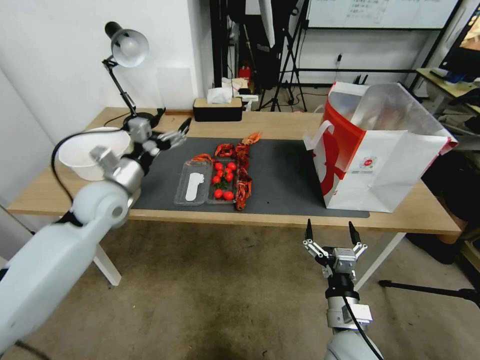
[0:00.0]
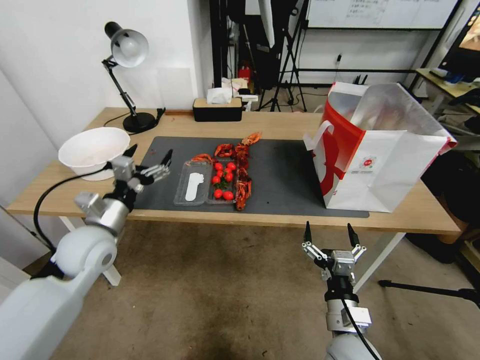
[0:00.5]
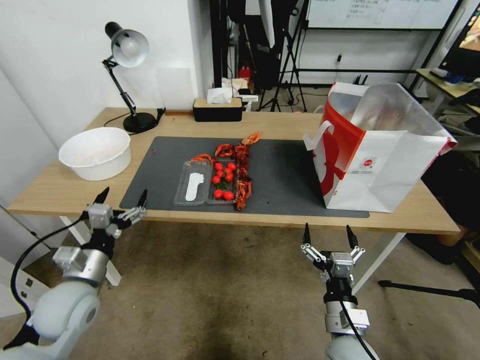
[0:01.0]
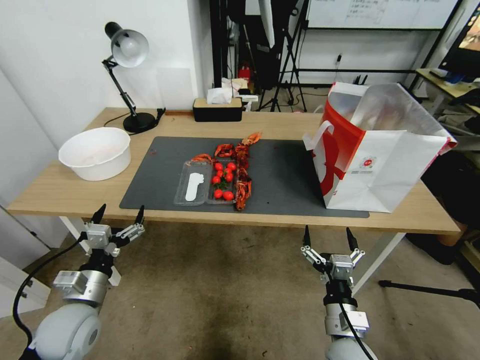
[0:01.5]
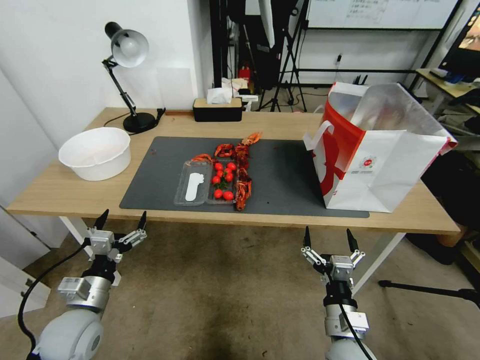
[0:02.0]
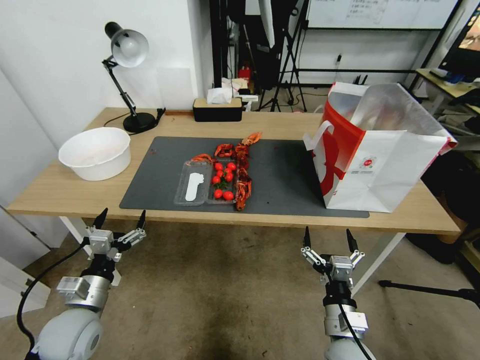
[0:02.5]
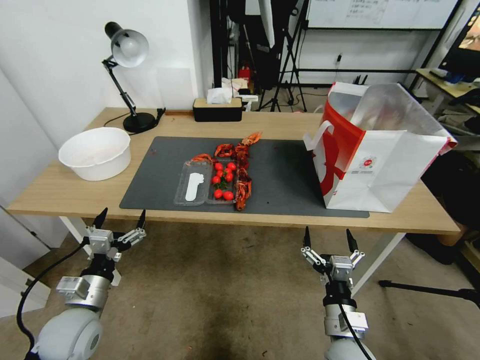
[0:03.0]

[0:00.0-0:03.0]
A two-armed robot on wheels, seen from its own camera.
0:00.0 to 0:01.5: The left gripper goes approximately 25 cm backward and downward.
0:01.5 to 0:03.0: The grippers move only a little.

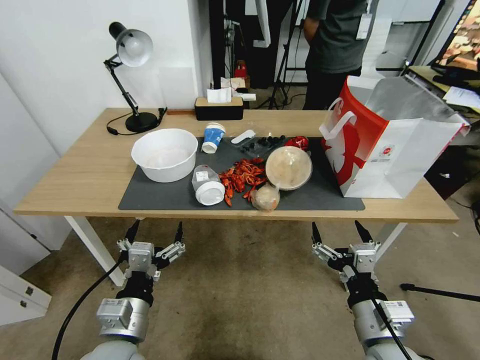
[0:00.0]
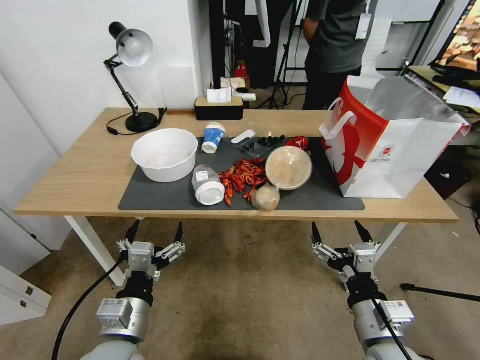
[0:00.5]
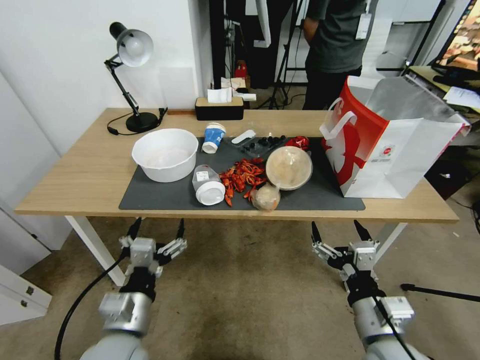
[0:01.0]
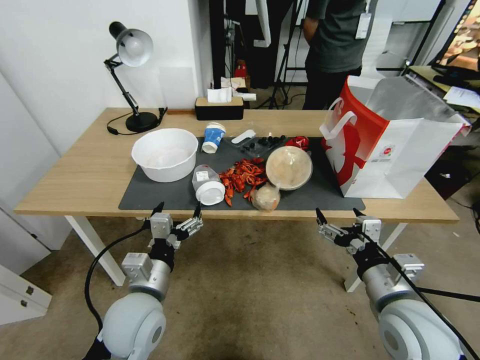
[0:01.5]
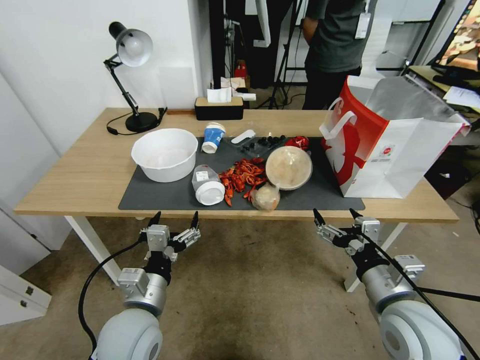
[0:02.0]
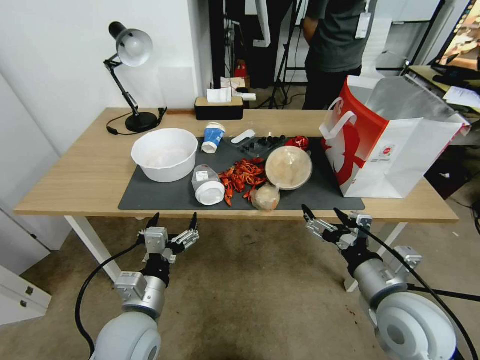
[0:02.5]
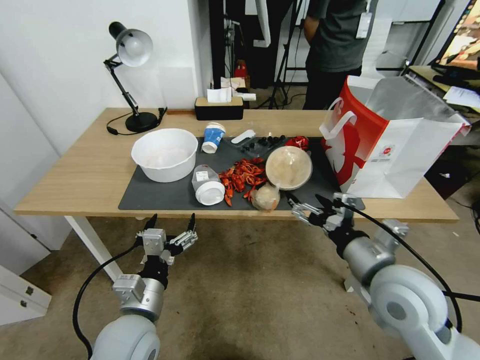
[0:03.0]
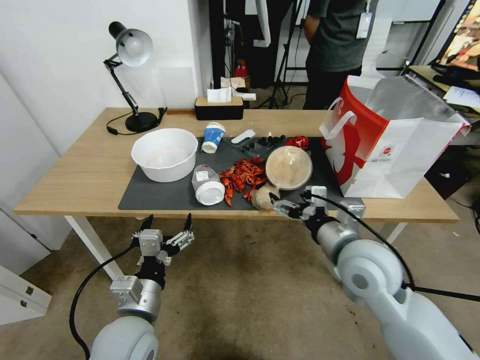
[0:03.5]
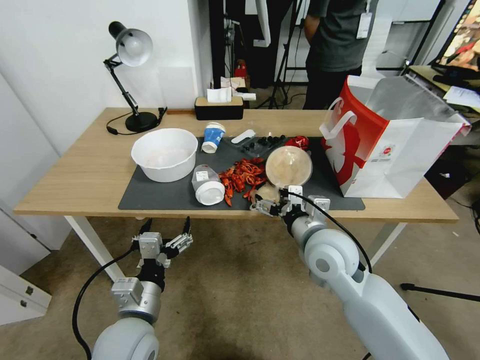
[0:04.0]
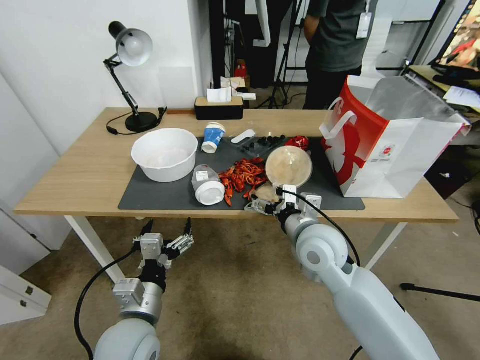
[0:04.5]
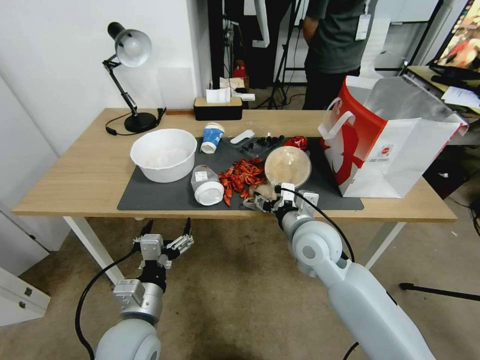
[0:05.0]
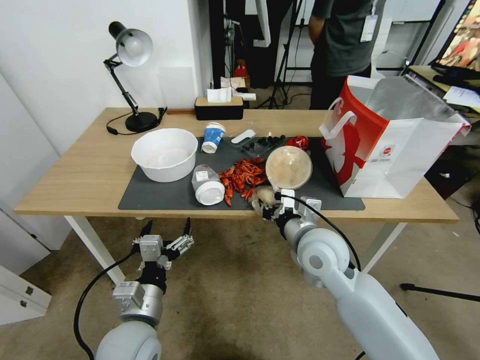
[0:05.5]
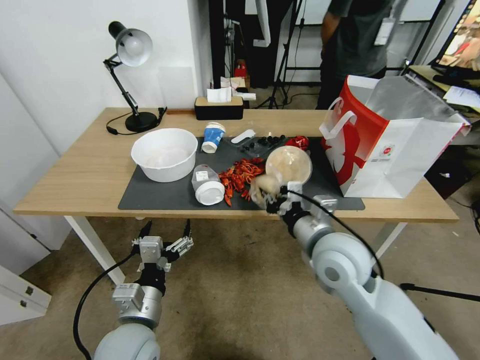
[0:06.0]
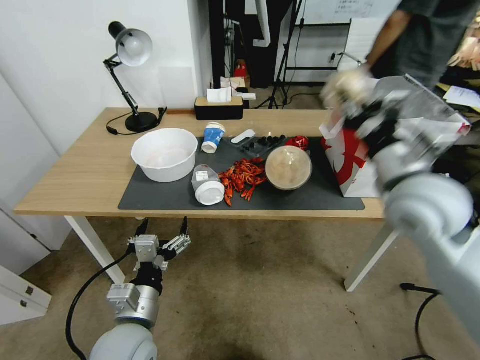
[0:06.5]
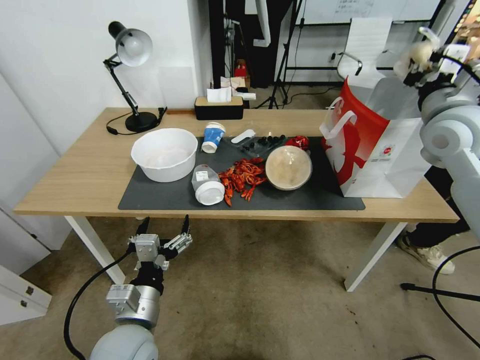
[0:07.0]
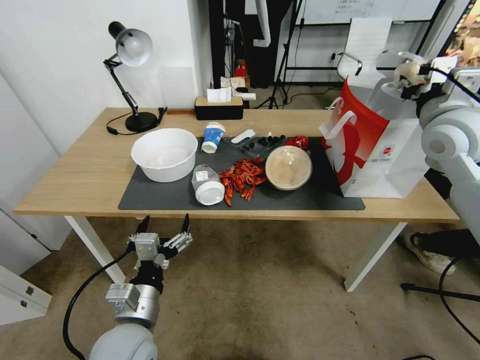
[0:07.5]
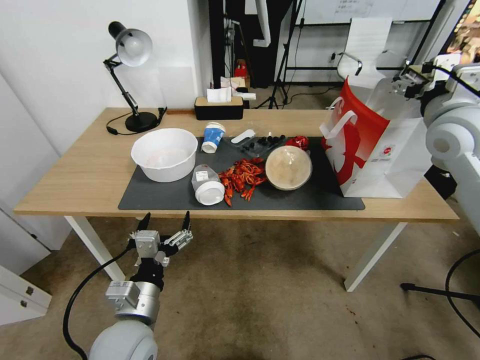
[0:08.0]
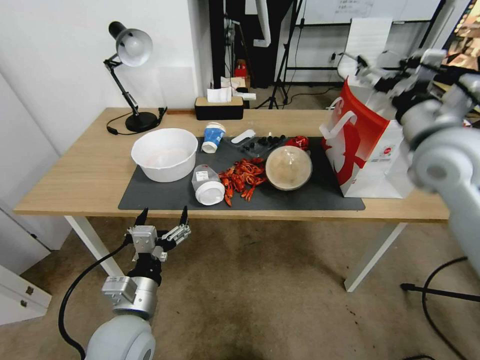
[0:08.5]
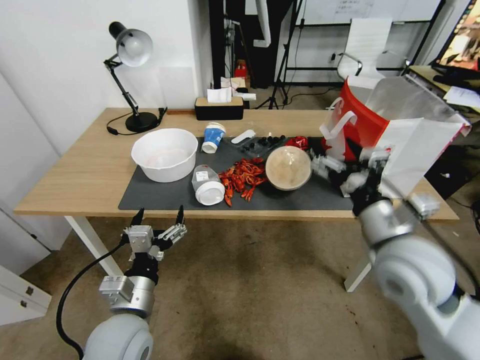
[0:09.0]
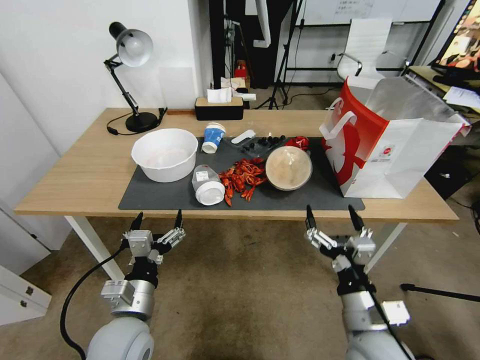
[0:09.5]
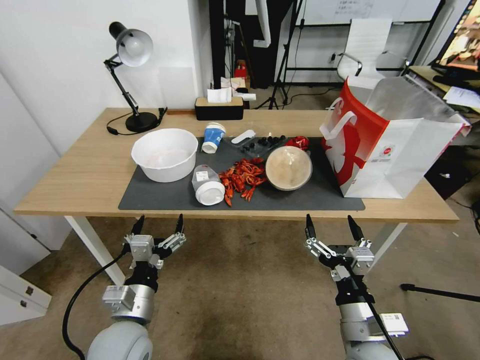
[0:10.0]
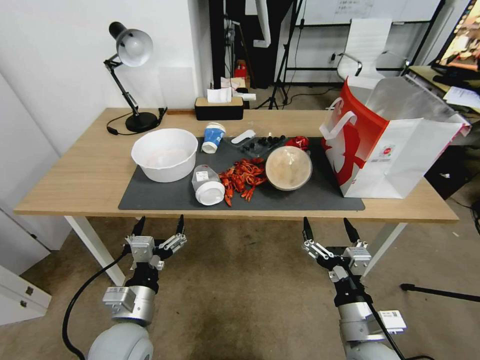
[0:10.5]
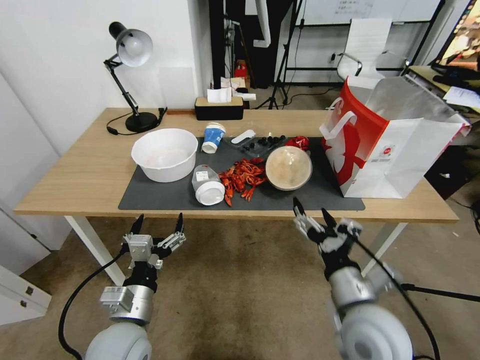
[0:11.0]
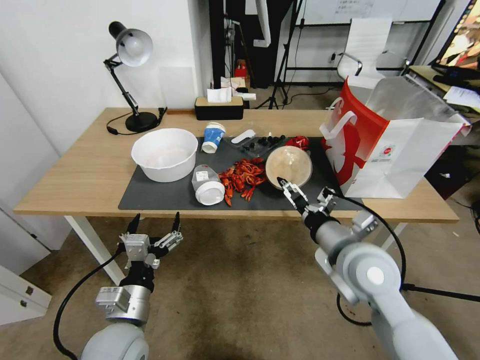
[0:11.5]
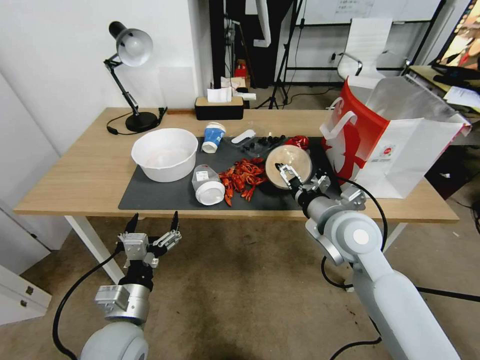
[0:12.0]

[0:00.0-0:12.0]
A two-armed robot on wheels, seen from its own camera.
0:02.0 to 0:04.0: The right gripper moves forward and to the left, some 15 cm.
0:04.0 to 0:06.0: The right gripper closes up.
0:06.0 to 0:08.0: The right gripper is displaced to the right, upward and forward by some 30 cm, and opens.
0:08.0 to 0:10.0: The right gripper shifts roughly 40 cm downward, backward and to the left.
0:10.0 to 0:12.0: The right gripper goes roughly 25 cm forward and upward.

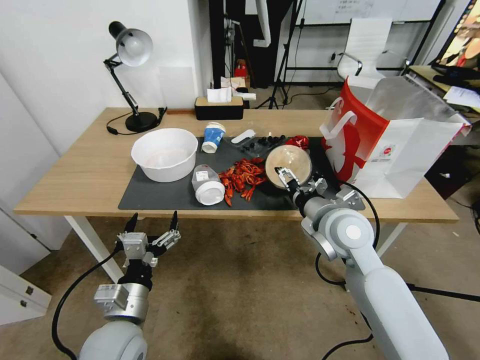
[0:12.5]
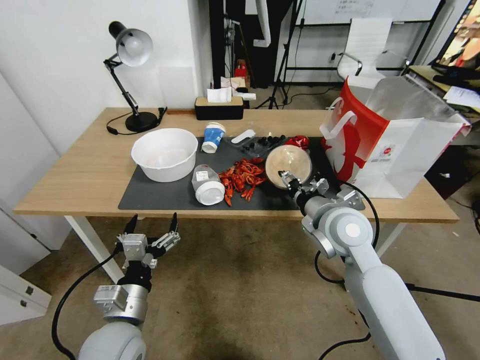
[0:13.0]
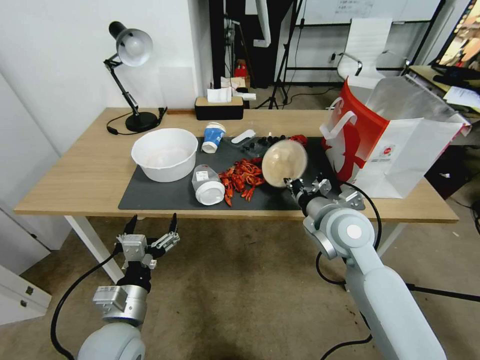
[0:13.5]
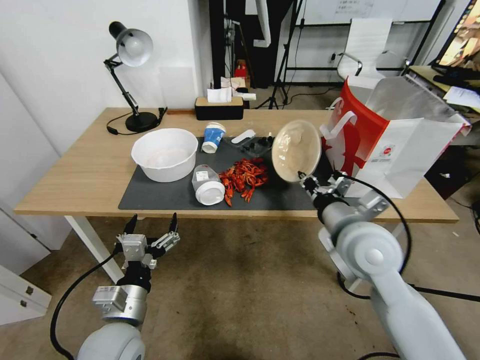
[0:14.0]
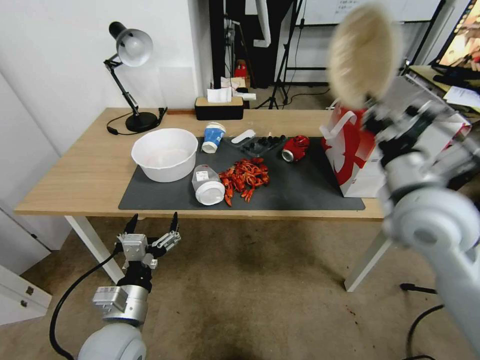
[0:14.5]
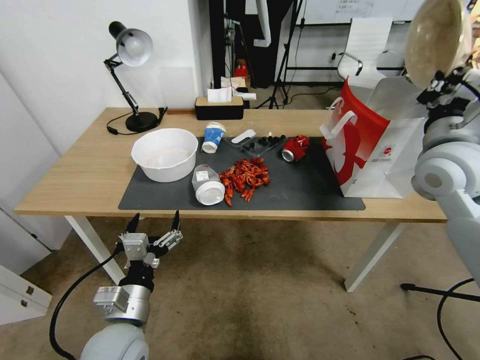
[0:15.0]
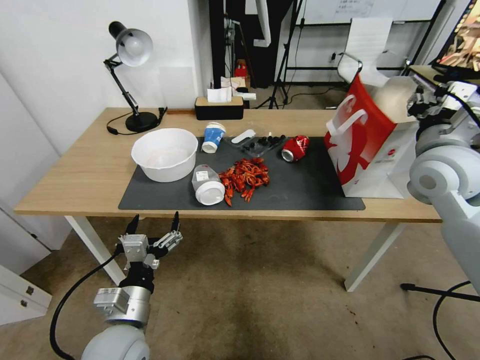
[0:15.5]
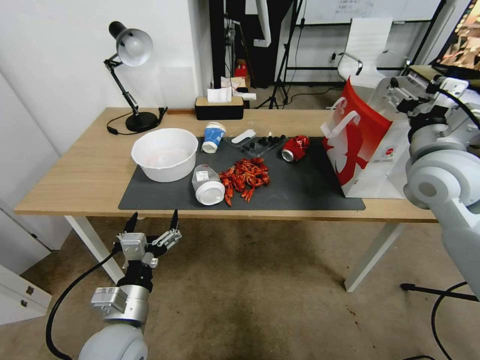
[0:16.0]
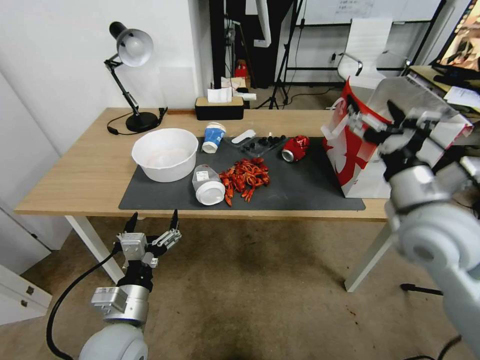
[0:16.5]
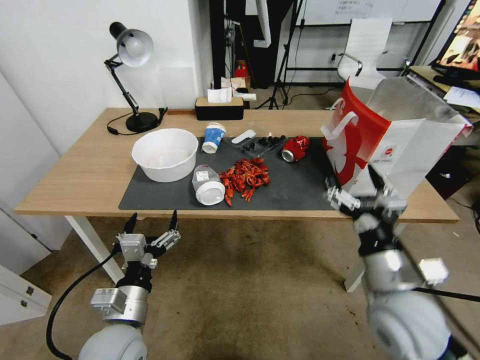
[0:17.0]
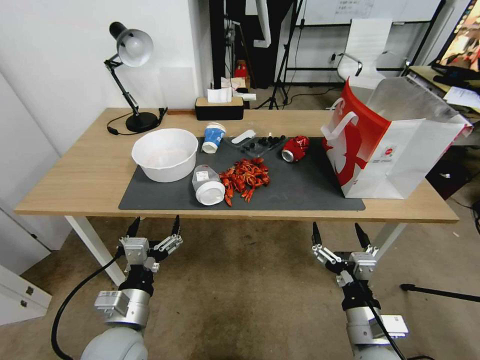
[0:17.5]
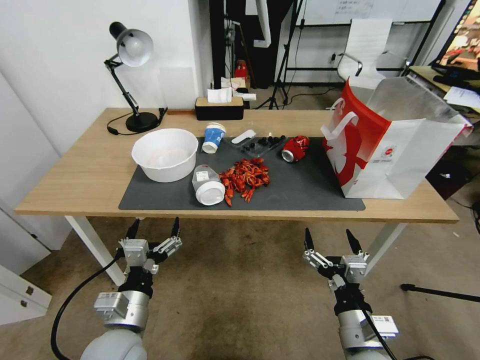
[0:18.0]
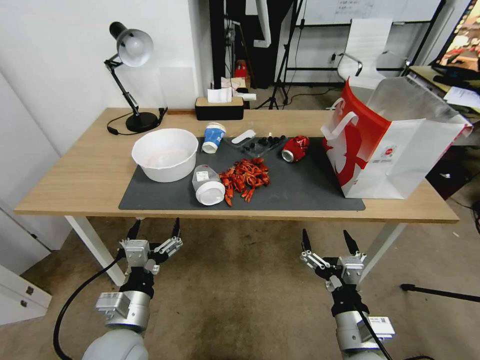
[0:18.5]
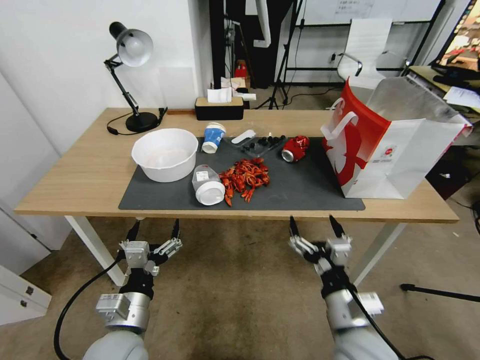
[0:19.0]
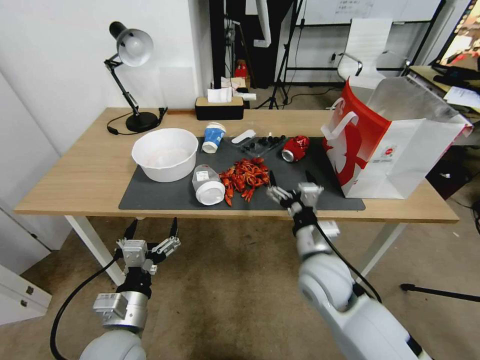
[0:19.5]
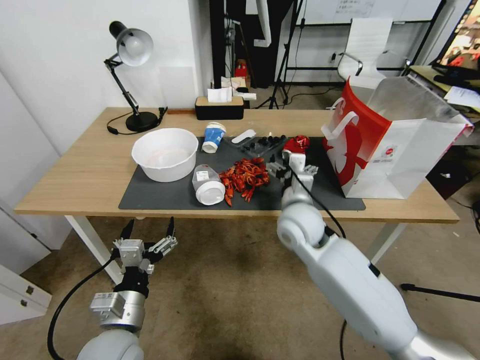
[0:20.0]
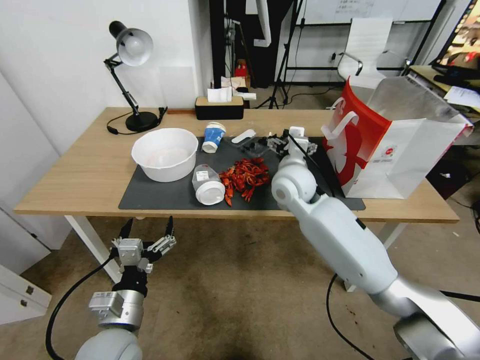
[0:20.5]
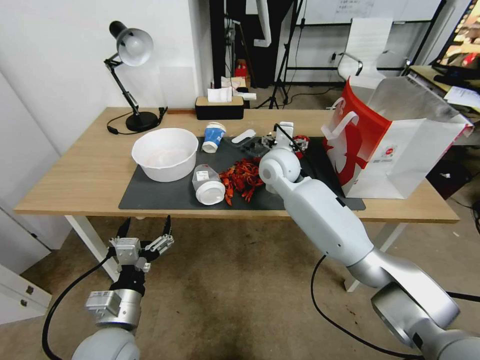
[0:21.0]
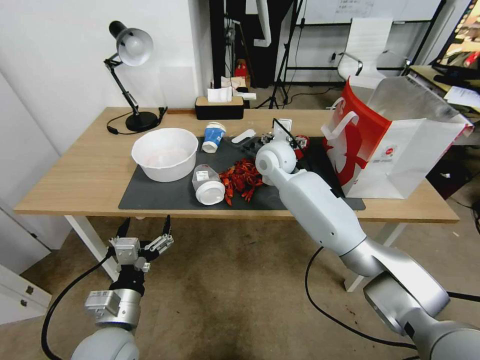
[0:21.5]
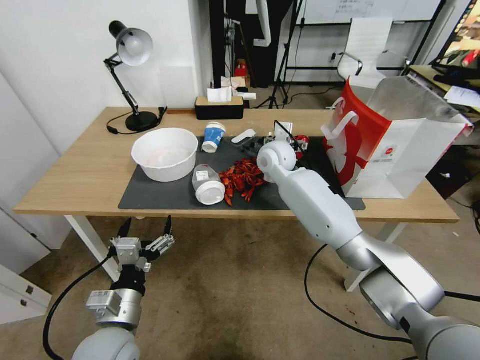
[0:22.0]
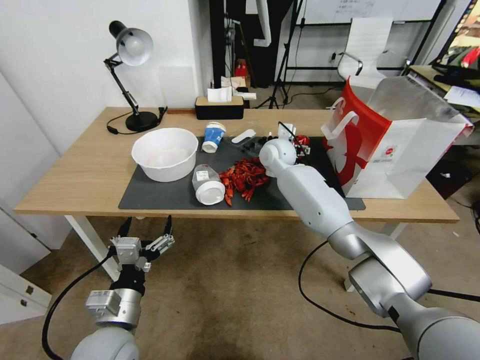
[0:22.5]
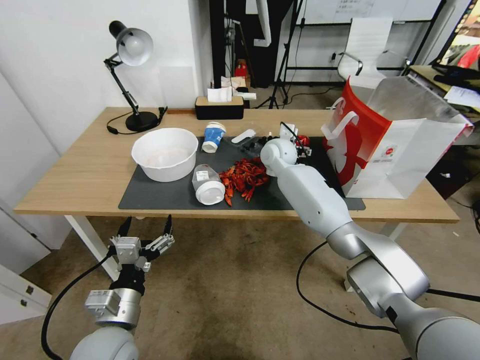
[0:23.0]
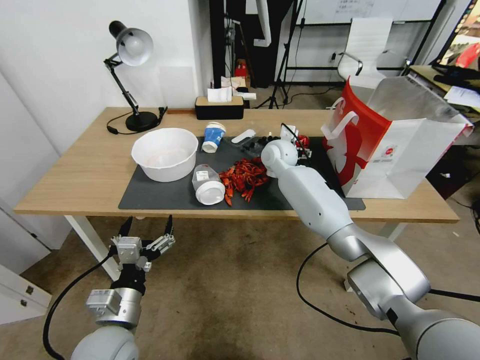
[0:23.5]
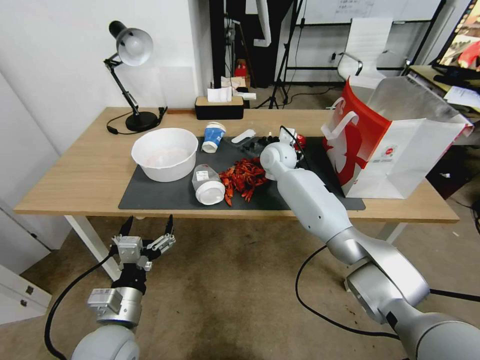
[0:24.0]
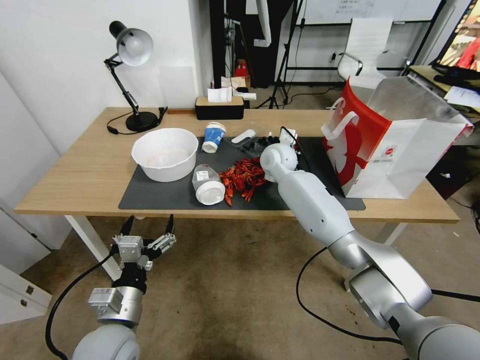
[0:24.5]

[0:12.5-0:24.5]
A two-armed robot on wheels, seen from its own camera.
0:12.5 to 0:14.5: The right gripper moves upward and to the right, approximately 15 cm, and closes up.
0:14.5 to 0:16.5: The right gripper goes forward and returns, roughly 10 cm each way, and opens up.
0:16.5 to 0:18.5: The right gripper goes about 25 cm downward and backward.
0:18.5 to 0:20.5: The right gripper heads forward and upward, covering approximately 35 cm.
0:20.5 to 0:22.5: The right gripper goes approximately 15 cm forward.
0:22.5 to 0:24.5: The right gripper closes its fingers.
